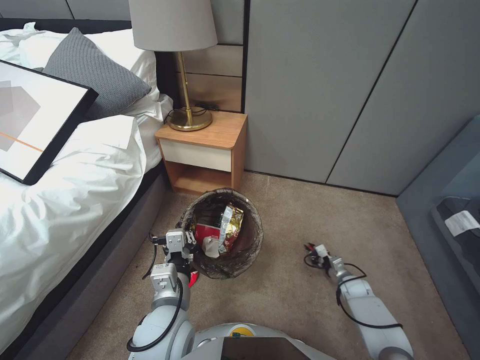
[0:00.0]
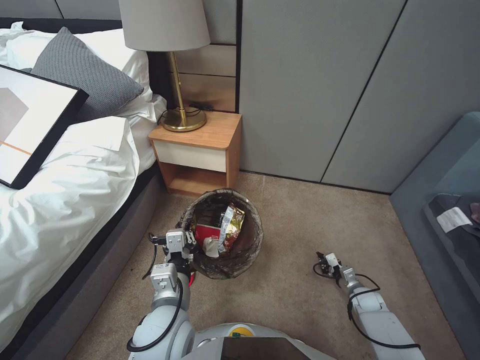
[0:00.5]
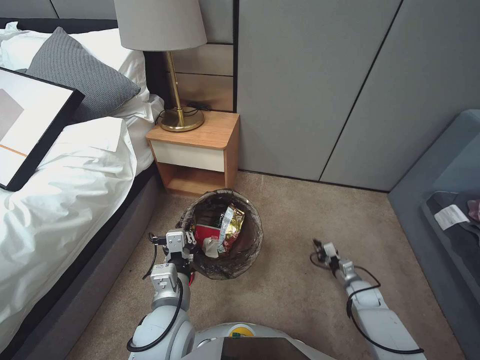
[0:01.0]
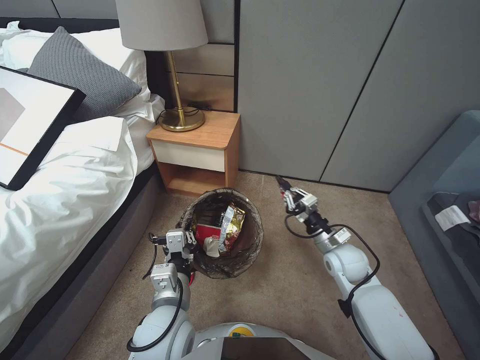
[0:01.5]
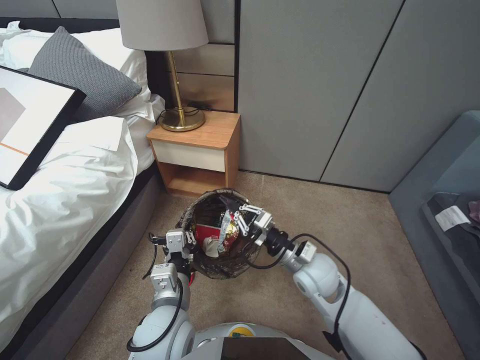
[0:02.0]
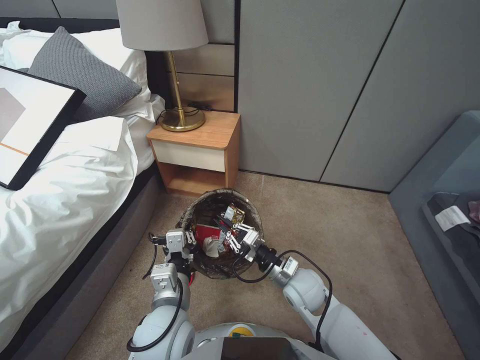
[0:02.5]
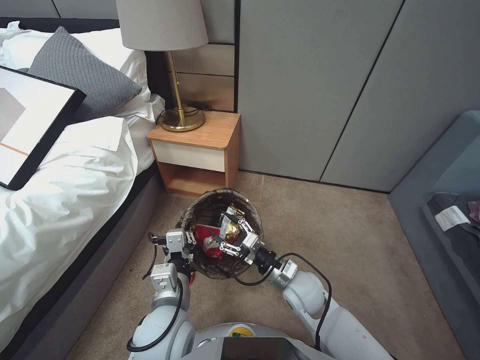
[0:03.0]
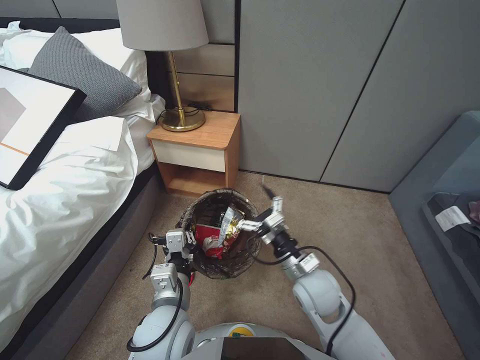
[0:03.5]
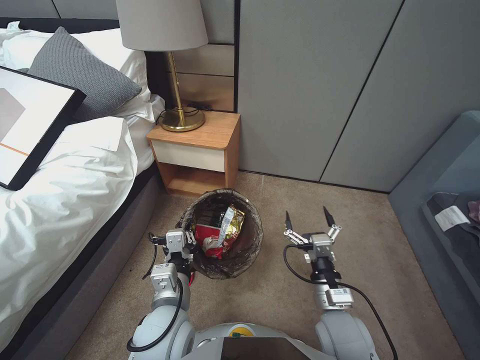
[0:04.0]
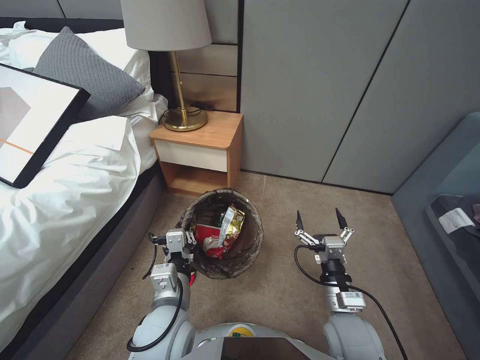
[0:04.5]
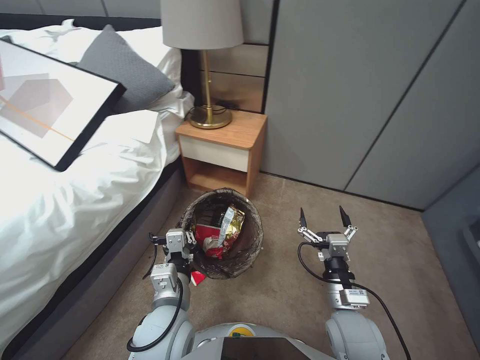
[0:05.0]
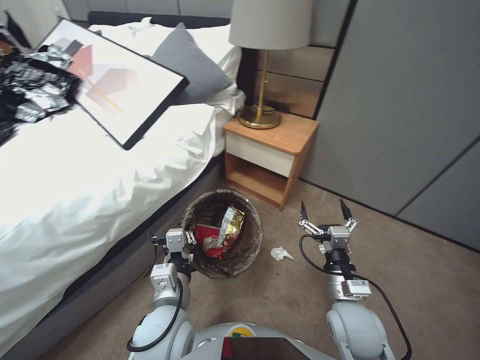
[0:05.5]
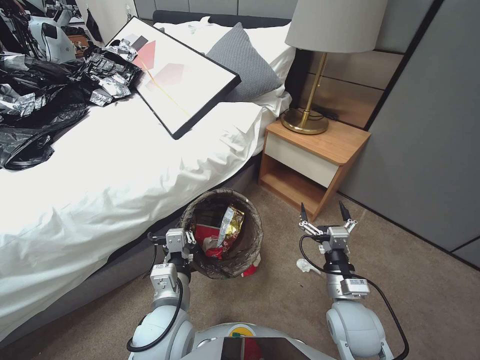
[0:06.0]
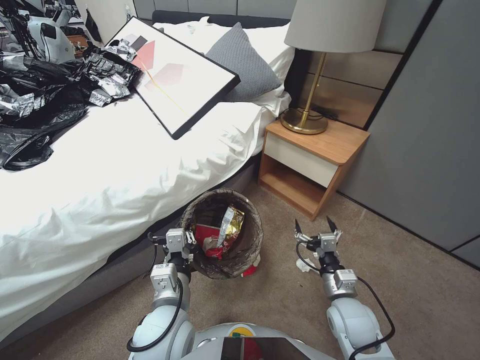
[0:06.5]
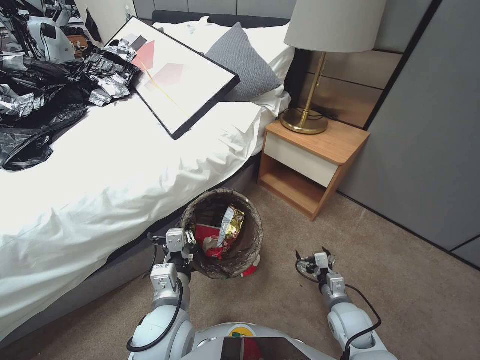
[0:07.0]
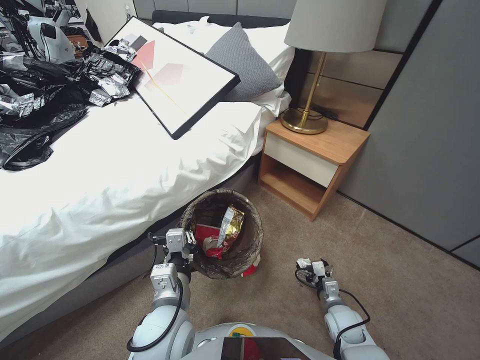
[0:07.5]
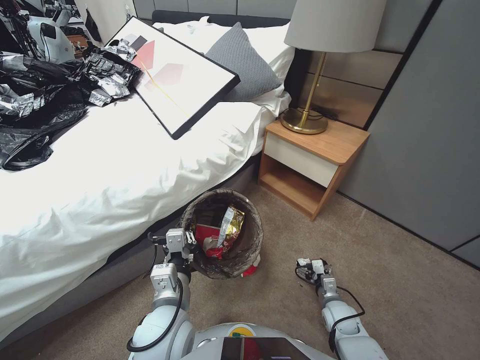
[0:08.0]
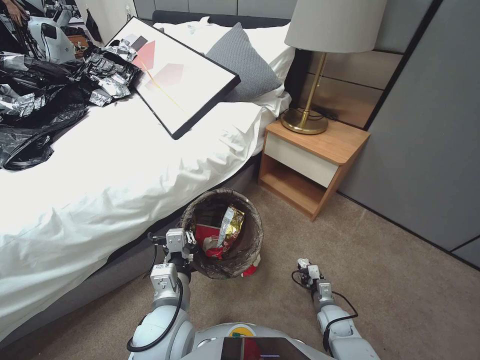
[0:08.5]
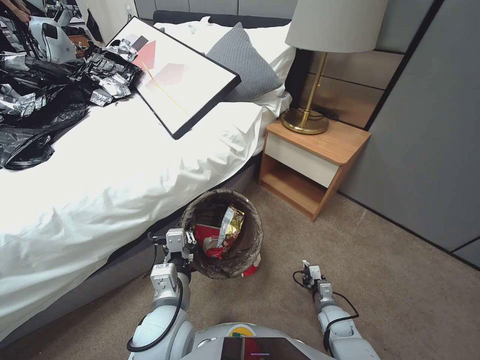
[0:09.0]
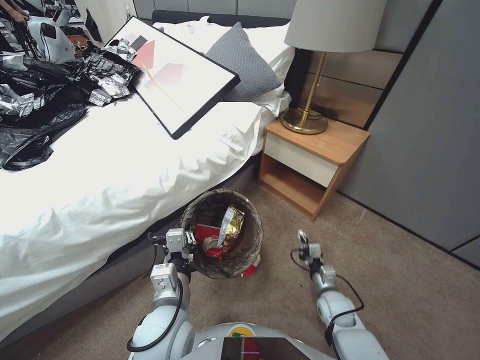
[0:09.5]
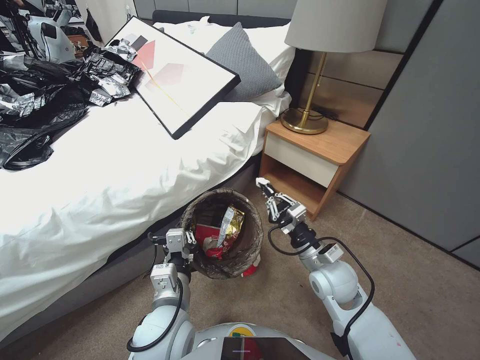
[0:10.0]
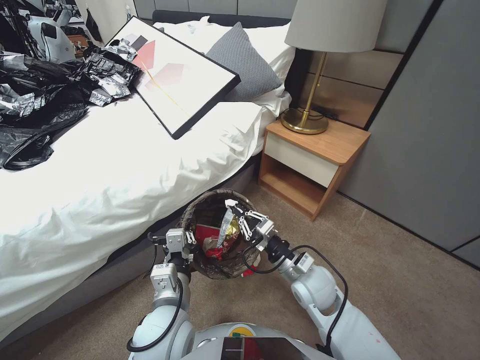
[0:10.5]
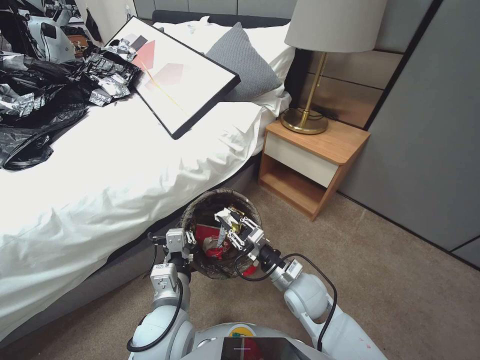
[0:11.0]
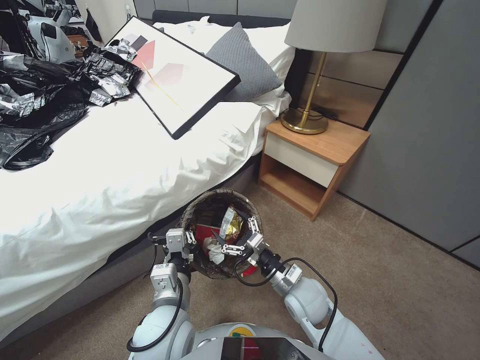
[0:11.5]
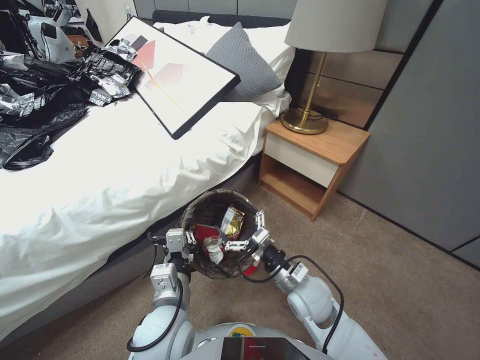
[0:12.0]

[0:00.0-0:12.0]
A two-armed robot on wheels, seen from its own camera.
Task of the whole recording: Pick up the trash bin, then pick up the garbage from the floor and place it into the trash bin.
0:00.0 to 0:02.0: The right gripper moves upward and to the left, about 40 cm.
0:02.0 to 0:04.0: The right gripper shifts approximately 10 cm backward, and opens.
0:06.0 to 0:08.0: The right gripper heads downward, covering approximately 20 cm.
0:08.0 to 0:10.0: The right gripper moves upward and to the left, approximately 20 cm, and closes up.
0:10.0 to 0:12.0: The right gripper heads to the left, covering some 5 cm, and opens its fingers.

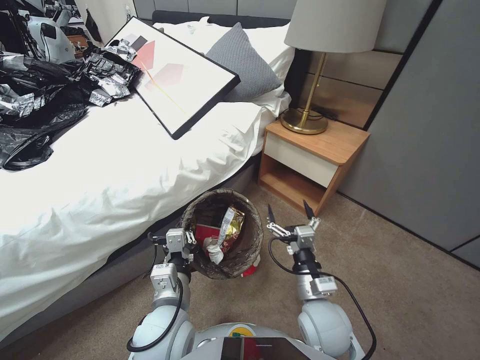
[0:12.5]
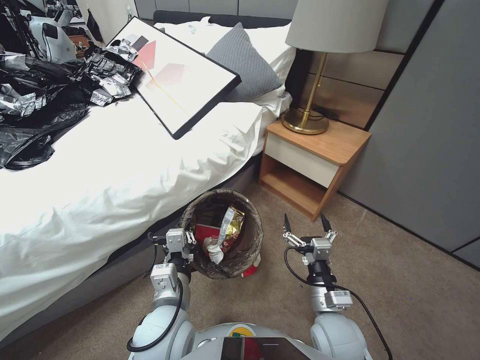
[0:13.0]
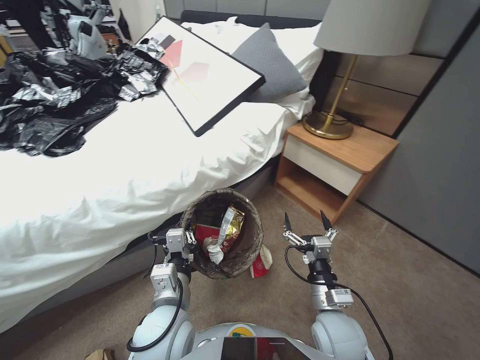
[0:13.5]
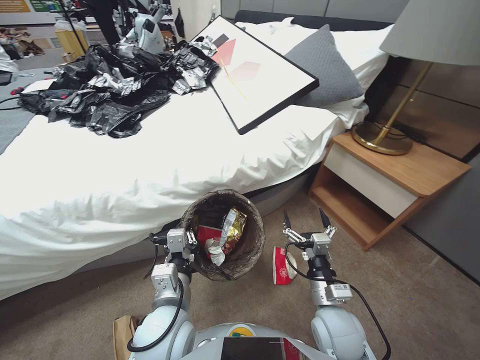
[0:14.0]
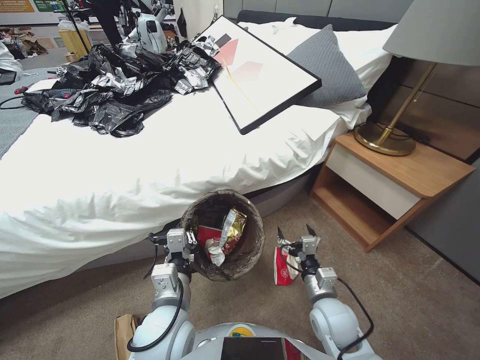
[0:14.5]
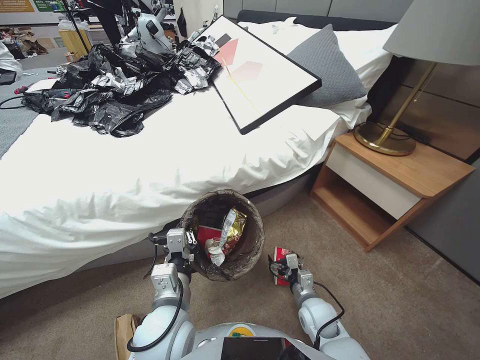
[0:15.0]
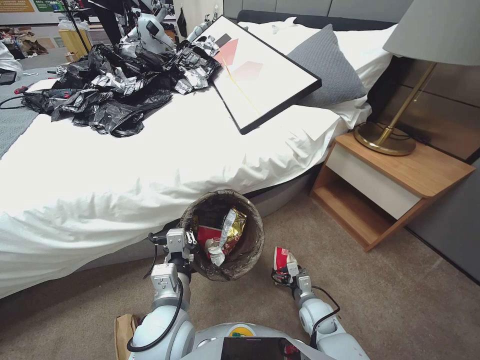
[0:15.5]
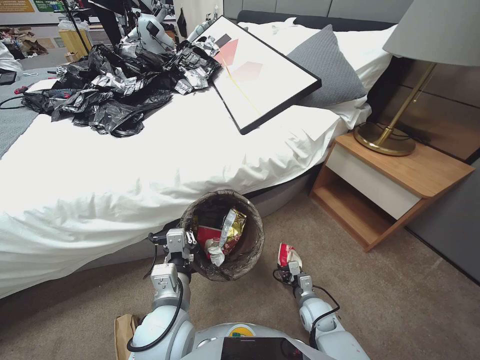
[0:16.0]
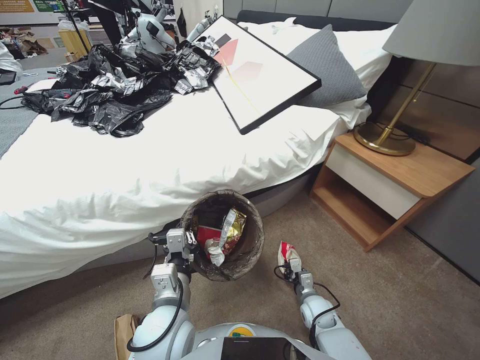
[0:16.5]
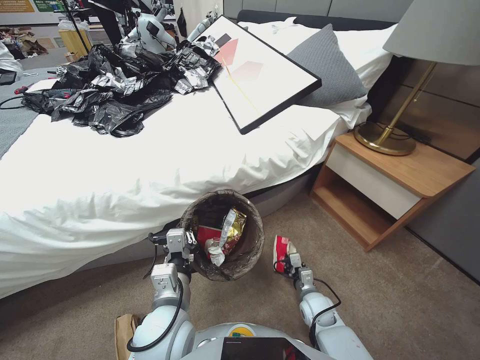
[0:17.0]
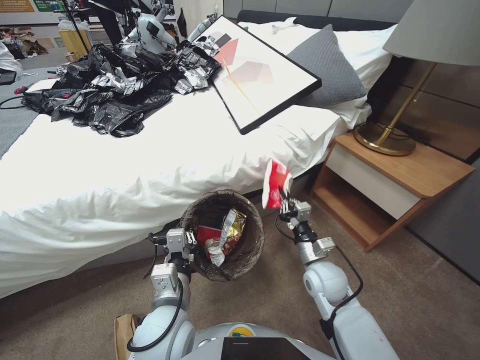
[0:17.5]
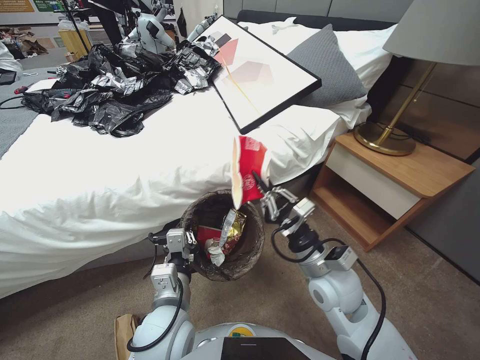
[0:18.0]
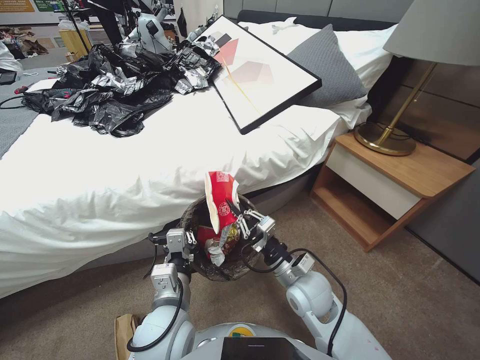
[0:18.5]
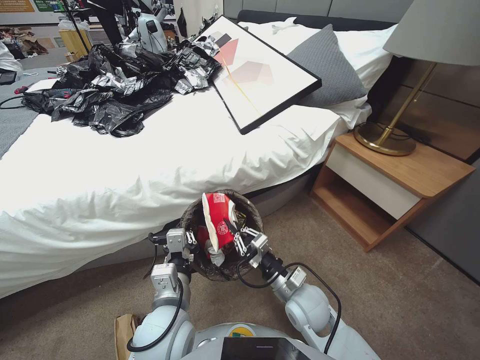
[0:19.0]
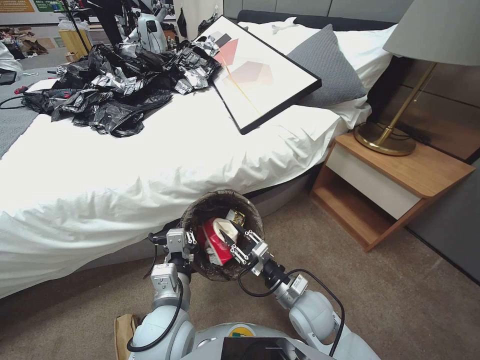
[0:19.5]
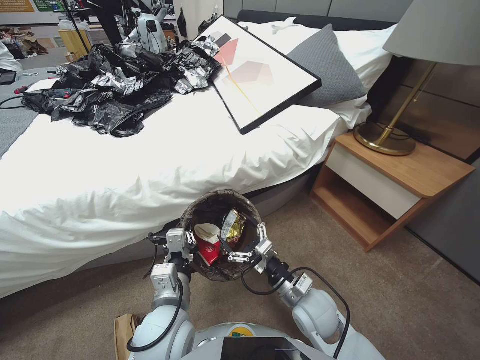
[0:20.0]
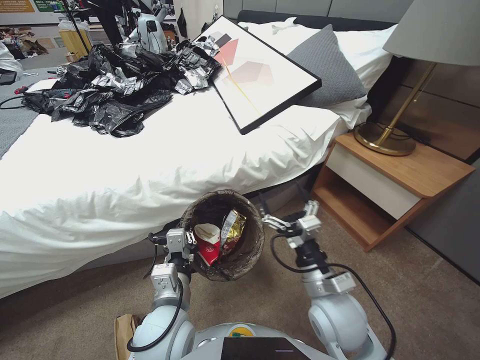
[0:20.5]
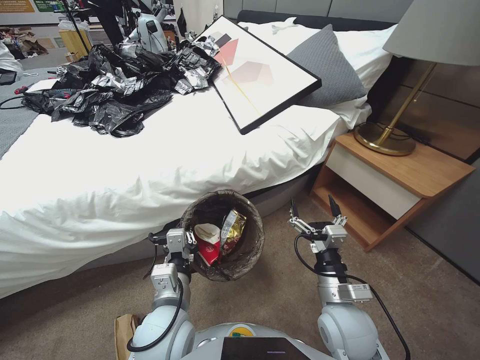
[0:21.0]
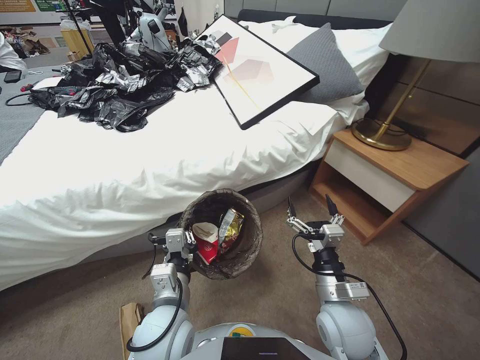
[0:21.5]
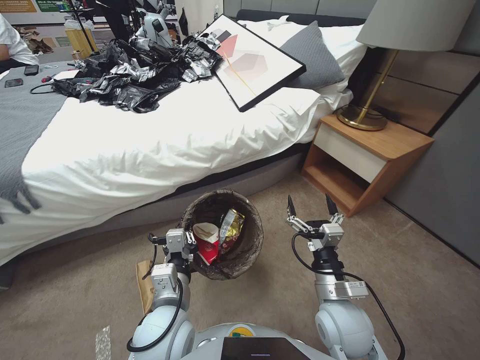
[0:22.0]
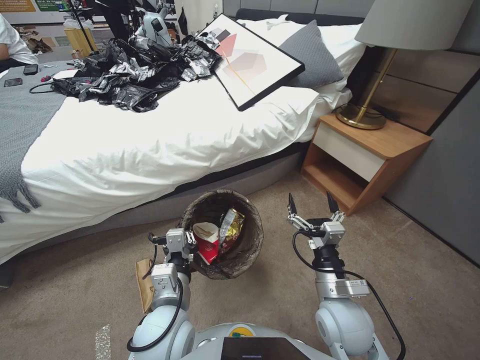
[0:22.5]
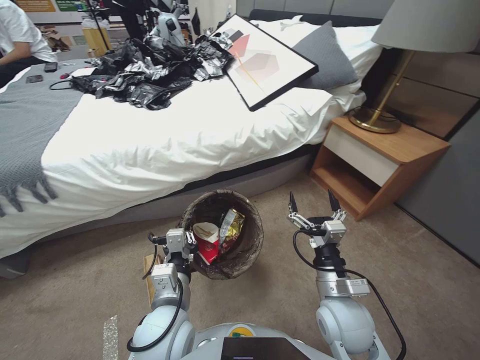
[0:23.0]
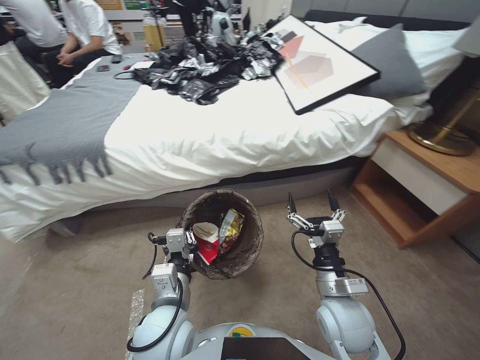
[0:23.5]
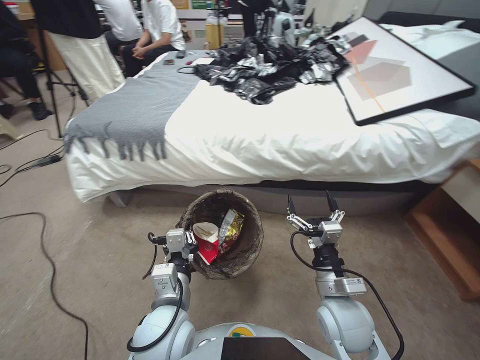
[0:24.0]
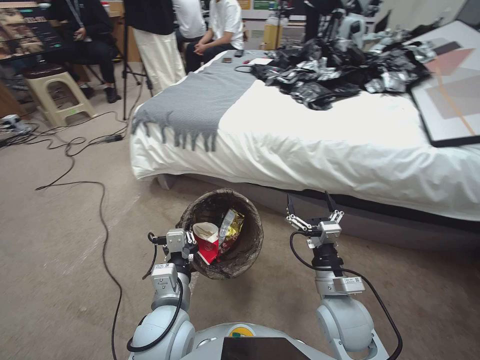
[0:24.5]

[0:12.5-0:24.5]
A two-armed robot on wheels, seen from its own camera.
Task of the whole recording: Pick up the trash bin, then pick up the garbage from the floor and place it into the trash bin.
0:12.5 to 0:14.5: The right gripper shifts some 10 cm downward and to the right.
0:14.5 to 0:16.5: The right gripper travels downward by approximately 20 cm, and closes.
0:16.5 to 0:18.5: The right gripper goes some 25 cm upward.
0:18.5 to 0:20.5: The right gripper moves some 5 cm downward and comes back, and opens up.

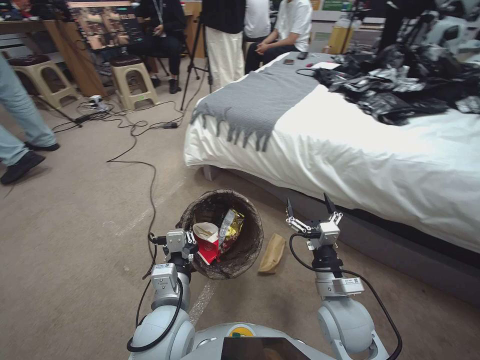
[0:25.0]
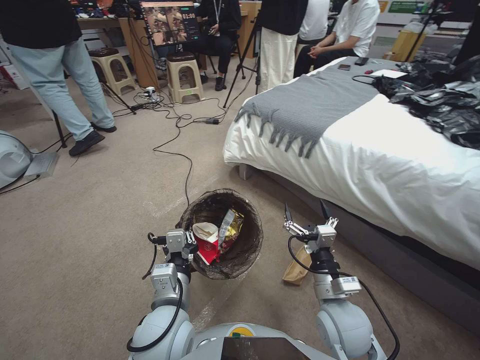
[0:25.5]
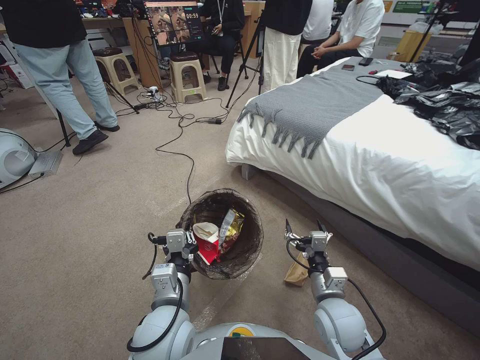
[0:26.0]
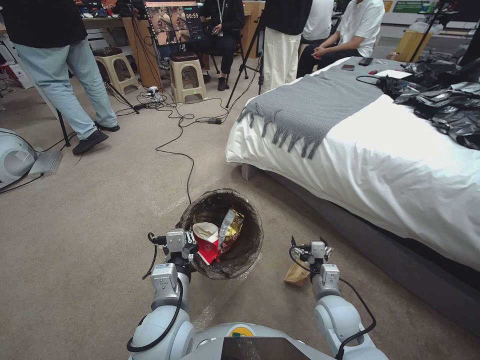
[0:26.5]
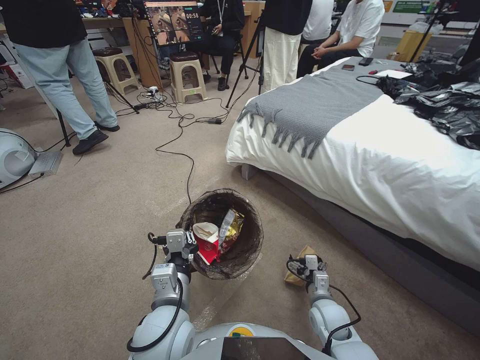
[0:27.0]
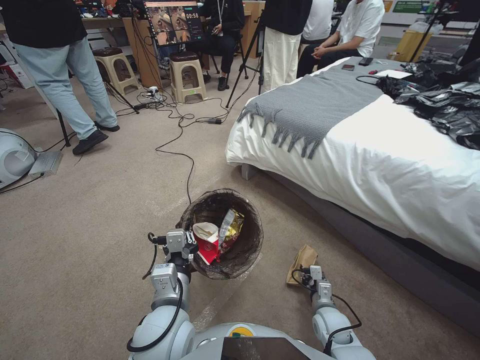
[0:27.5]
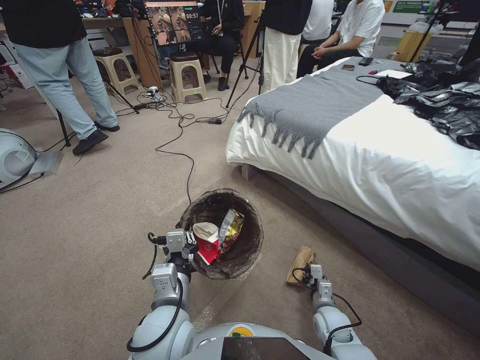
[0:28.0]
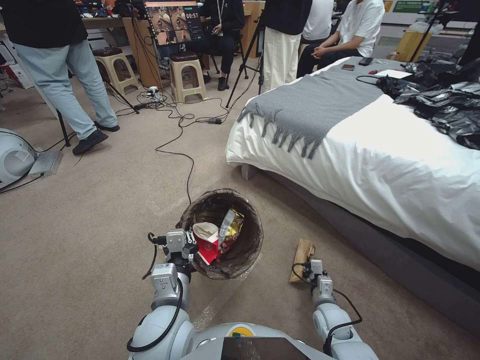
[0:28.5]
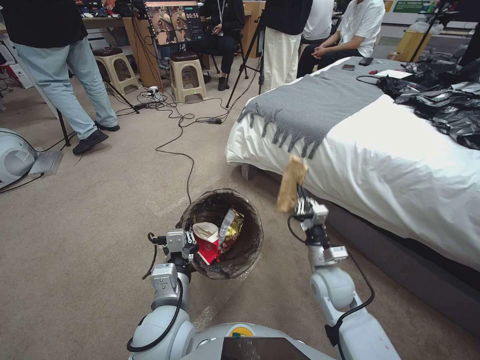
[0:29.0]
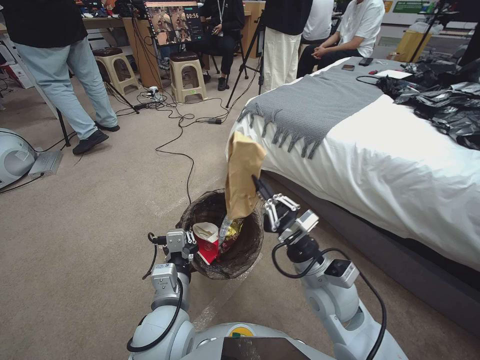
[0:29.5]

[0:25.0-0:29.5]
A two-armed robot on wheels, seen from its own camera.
Task of the whole recording: Pick up the trash bin, then pick up the garbage from the floor and place it into the trash bin.
0:25.0 to 0:27.0: The right gripper travels downward by roughly 15 cm.
0:27.0 to 0:29.5: The right gripper is displaced upward by approximately 20 cm, and closes up.
